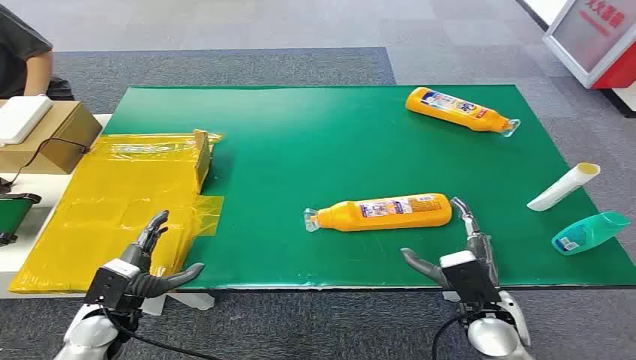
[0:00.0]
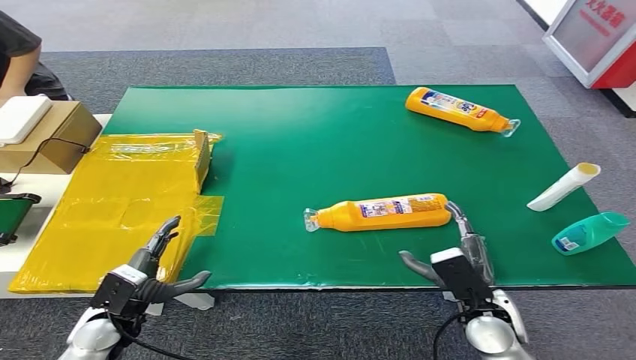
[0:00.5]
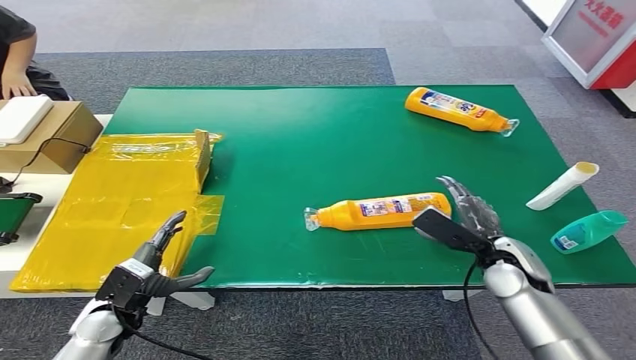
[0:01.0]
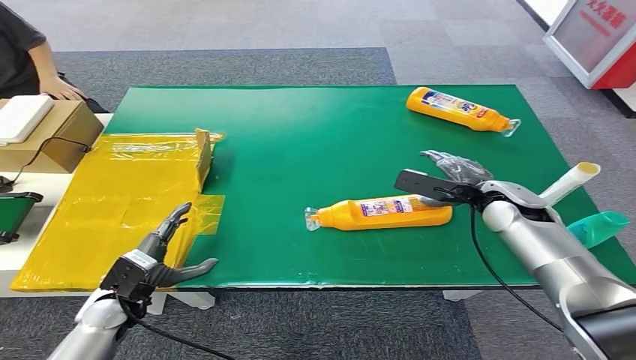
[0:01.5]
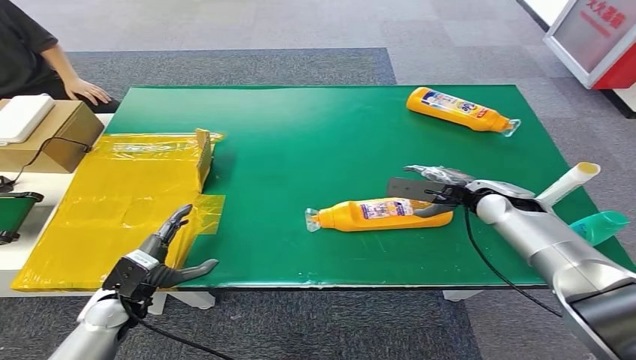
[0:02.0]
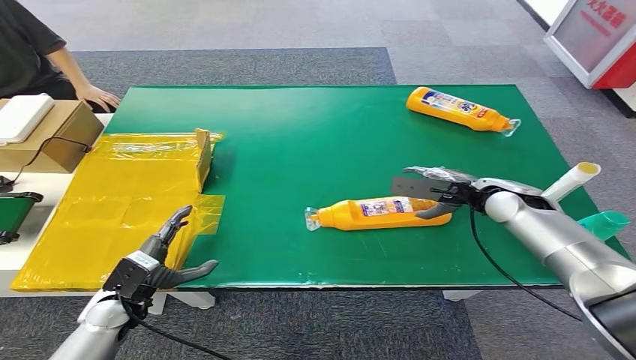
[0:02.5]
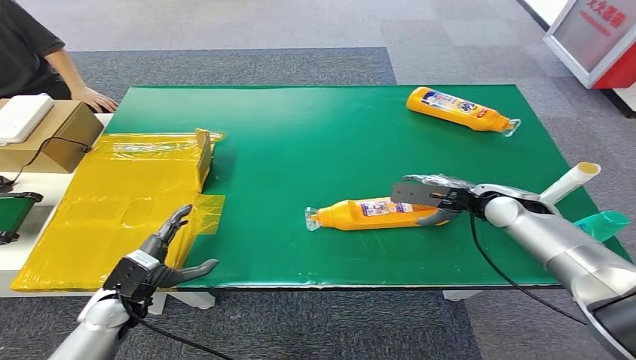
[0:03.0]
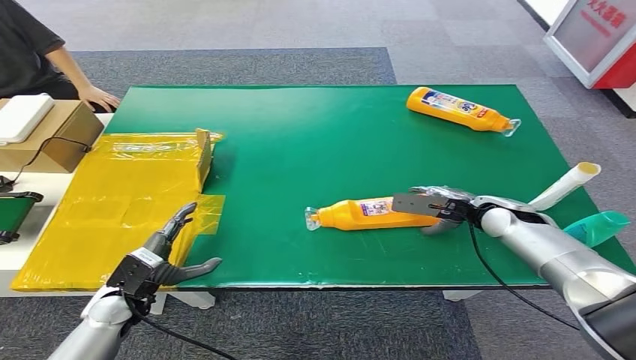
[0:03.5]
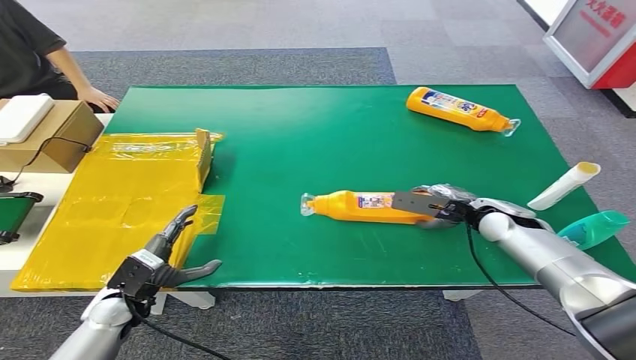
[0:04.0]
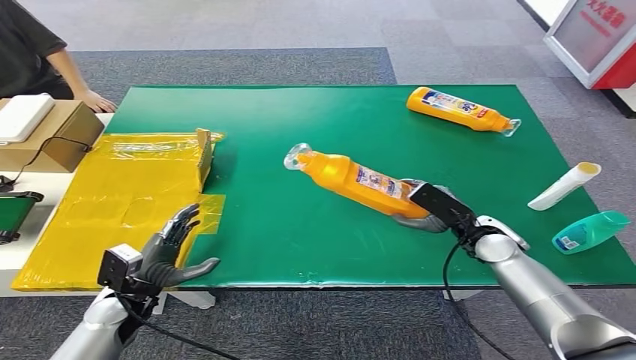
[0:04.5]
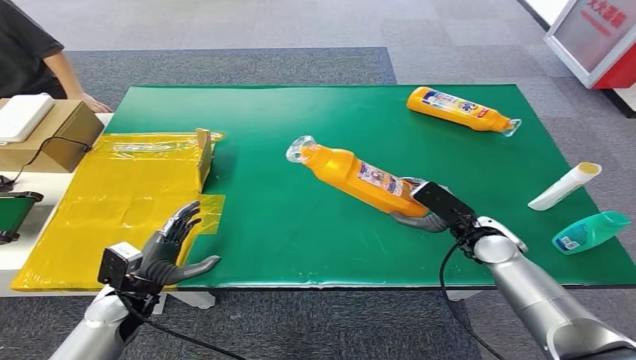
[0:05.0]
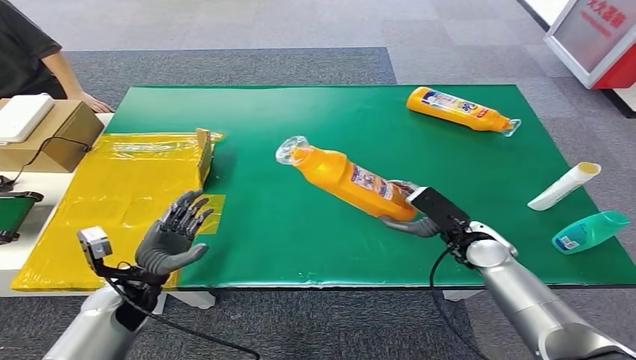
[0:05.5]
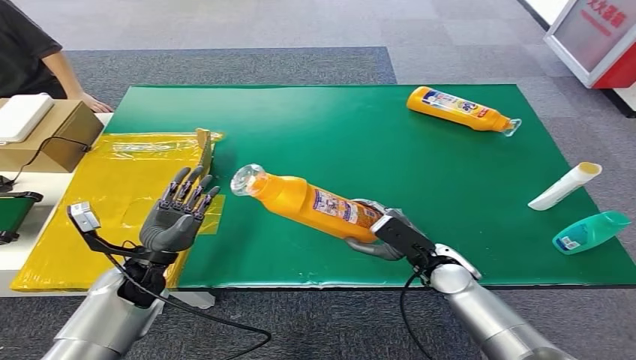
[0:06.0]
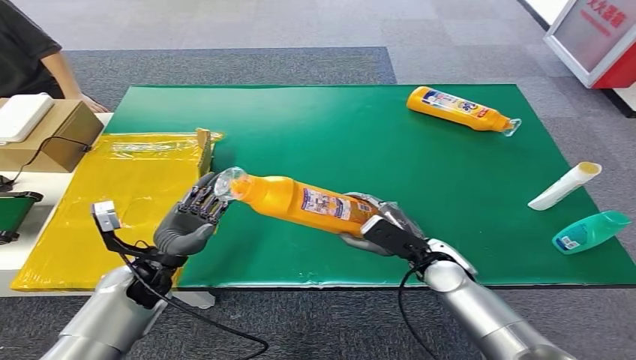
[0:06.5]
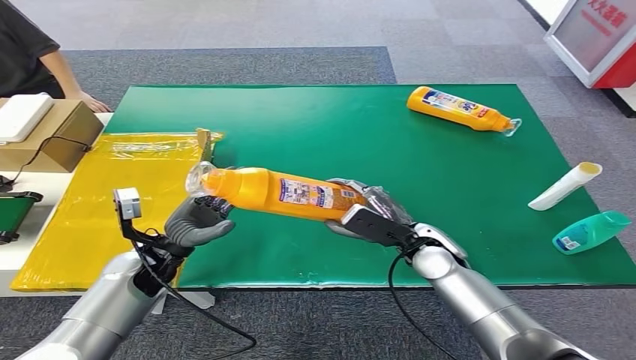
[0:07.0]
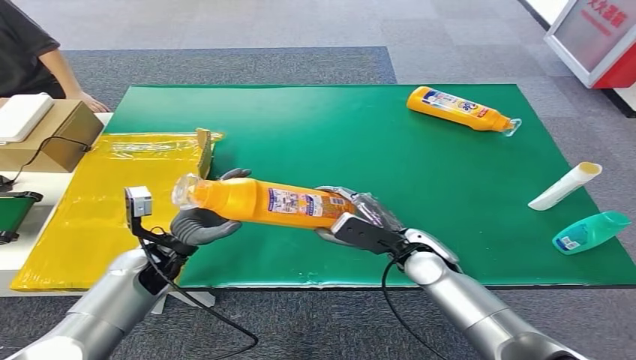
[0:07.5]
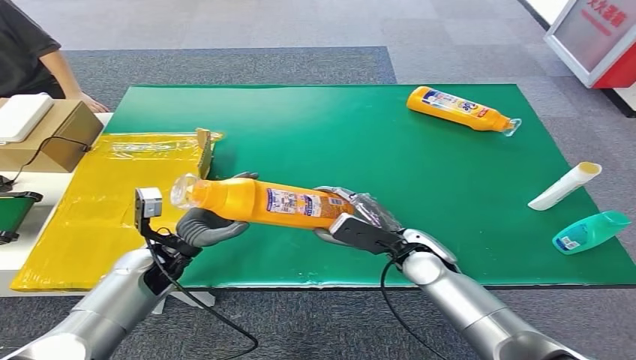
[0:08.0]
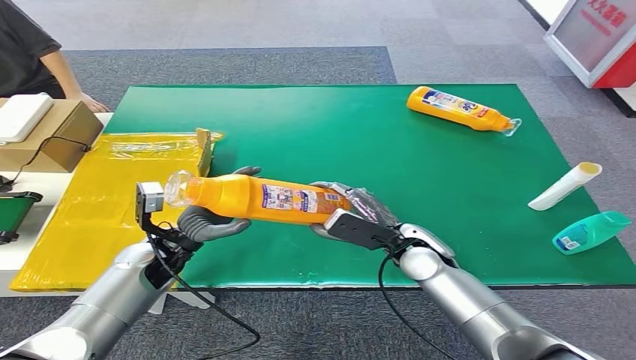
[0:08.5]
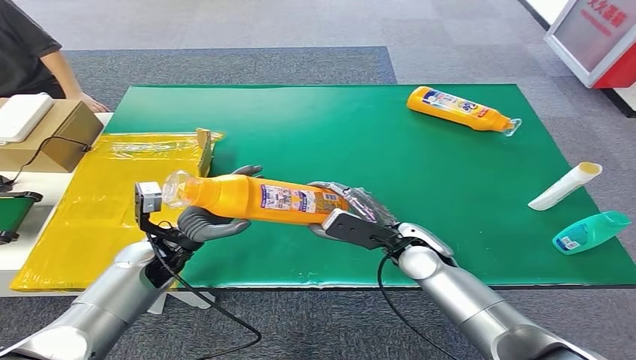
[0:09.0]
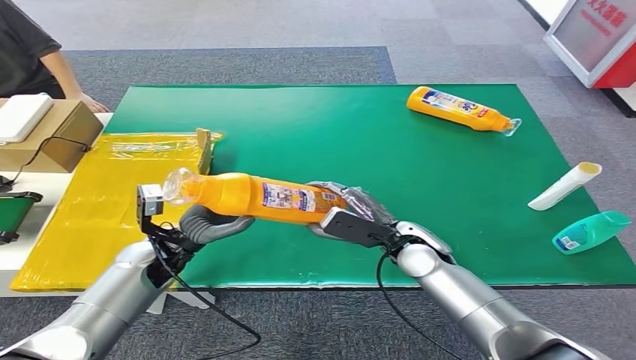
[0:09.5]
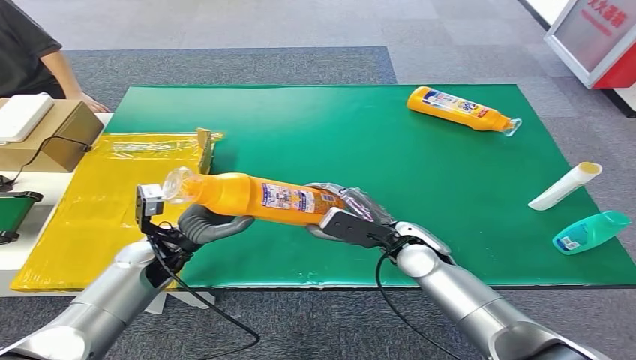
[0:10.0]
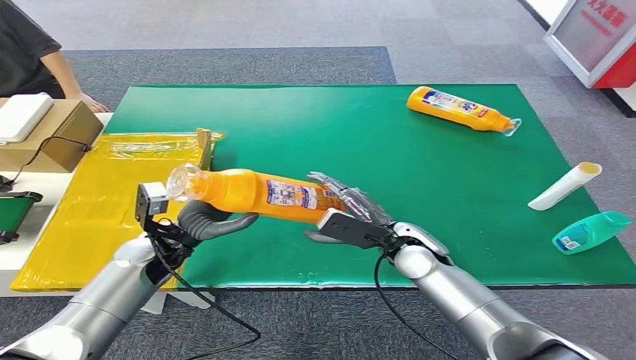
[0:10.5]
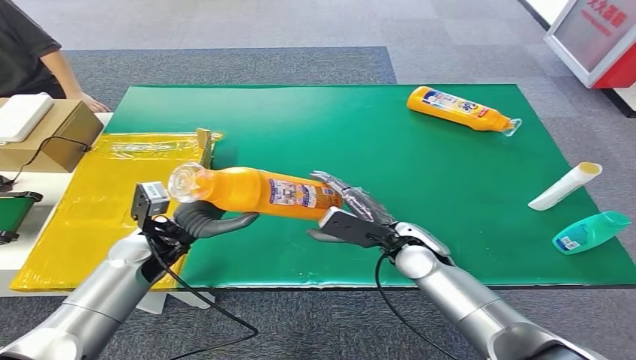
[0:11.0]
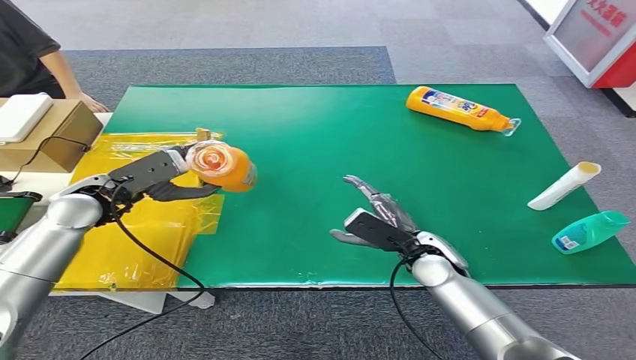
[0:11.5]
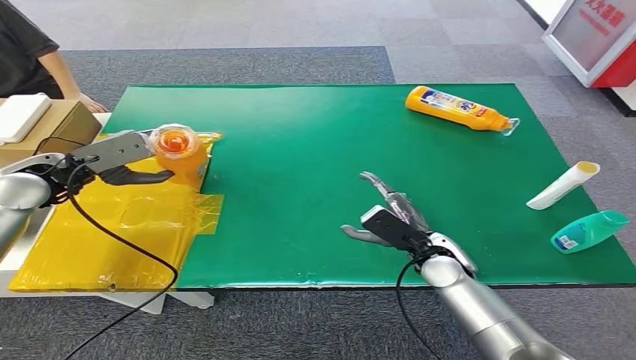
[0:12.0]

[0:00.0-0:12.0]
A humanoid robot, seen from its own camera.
Step, 0:00.0 to 0:04.5: Pick up the bottle from the table.
0:02.0 to 0:04.0: The hands stay close to where they were, moving slightly.
0:04.0 to 0:06.0: The right hand shifts approximately 15 cm to the left, backward and downward; the left hand shifts about 5 cm upward.
0:06.0 to 0:08.0: The right hand changes place by roughly 5 cm.
0:08.0 to 0:10.0: There are only small adjustments of the hands.

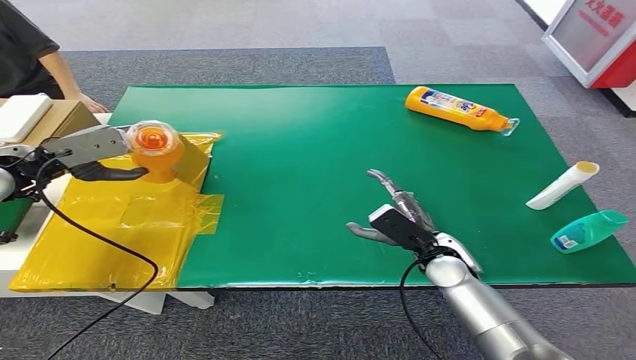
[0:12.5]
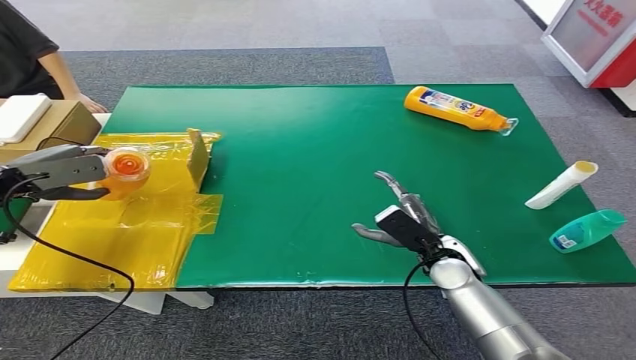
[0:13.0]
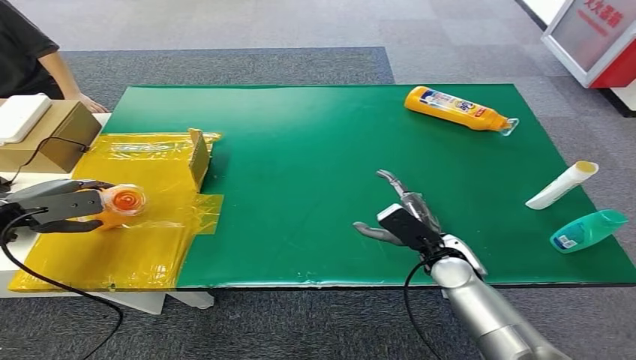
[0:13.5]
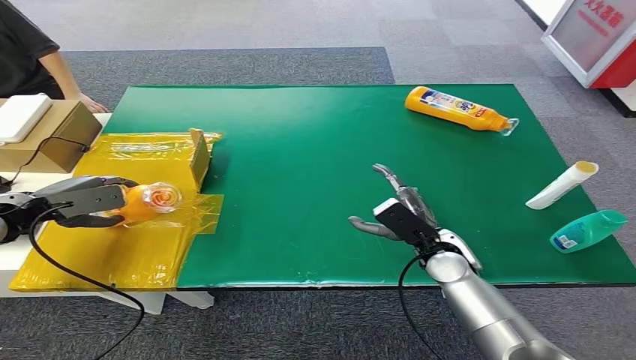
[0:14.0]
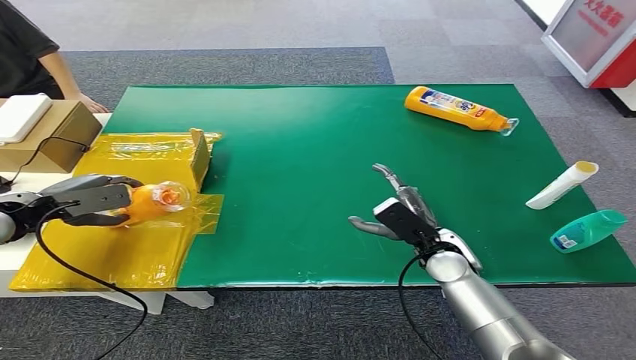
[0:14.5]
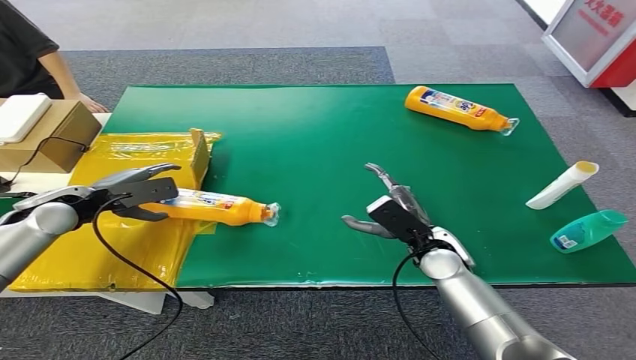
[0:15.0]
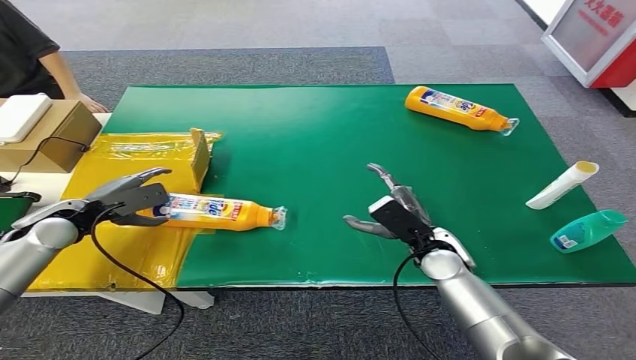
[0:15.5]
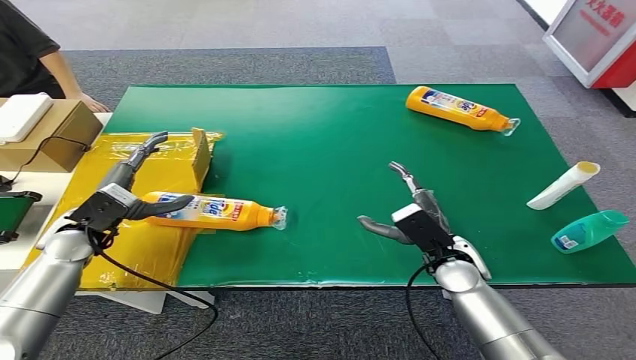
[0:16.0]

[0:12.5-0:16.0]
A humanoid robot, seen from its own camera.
Step, 0:12.5 to 0:16.0: Turn the bottle to the front side.
0:12.5 to 0:14.5: The left hand heads downward, covering approximately 5 cm.
0:14.5 to 0:16.0: The left hand heads to the right and downward, covering approximately 10 cm.

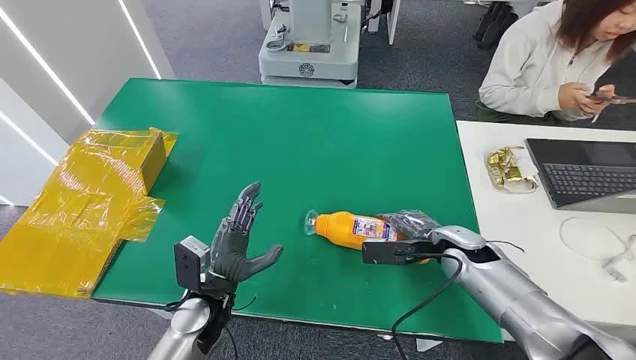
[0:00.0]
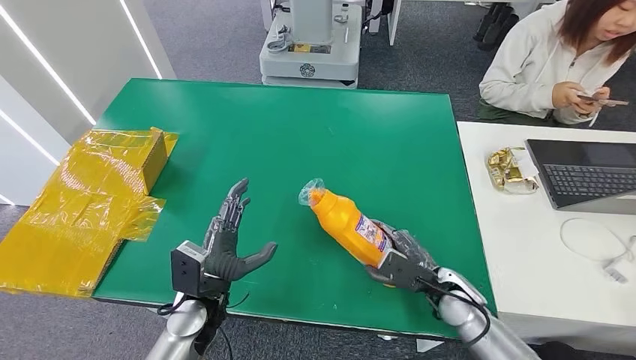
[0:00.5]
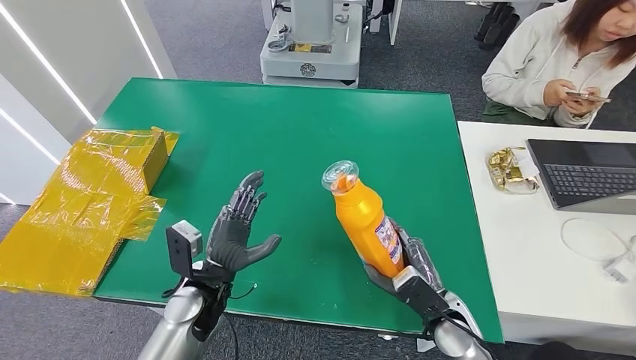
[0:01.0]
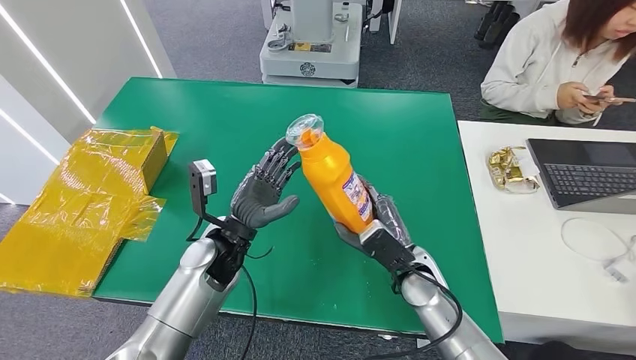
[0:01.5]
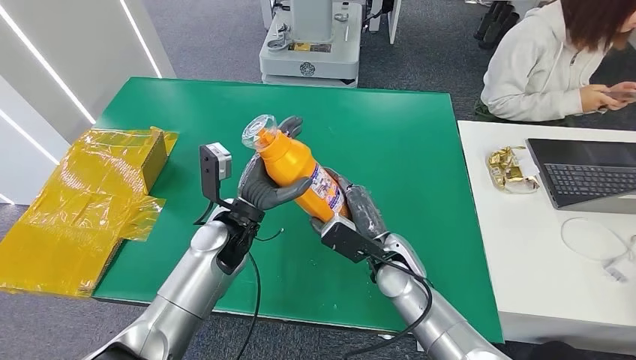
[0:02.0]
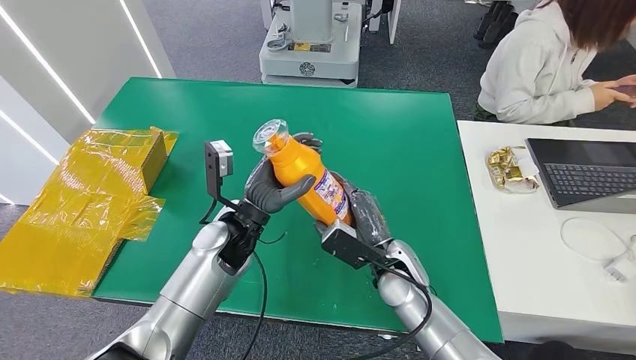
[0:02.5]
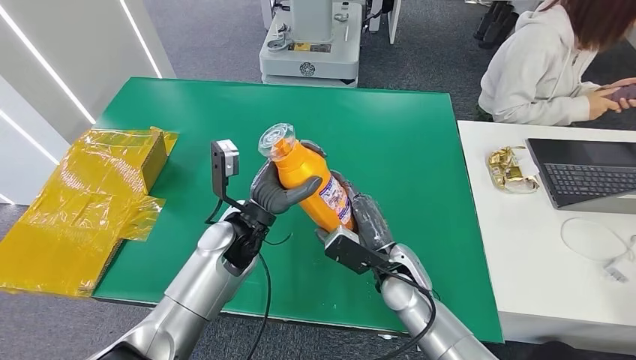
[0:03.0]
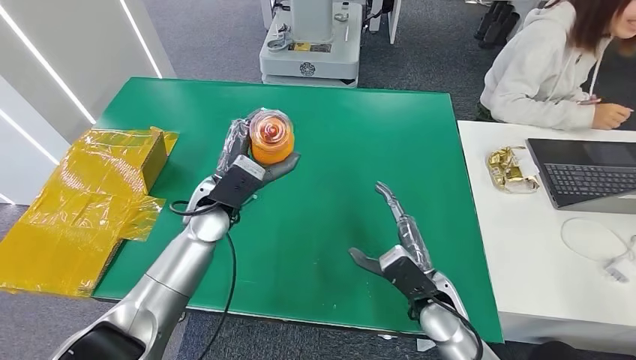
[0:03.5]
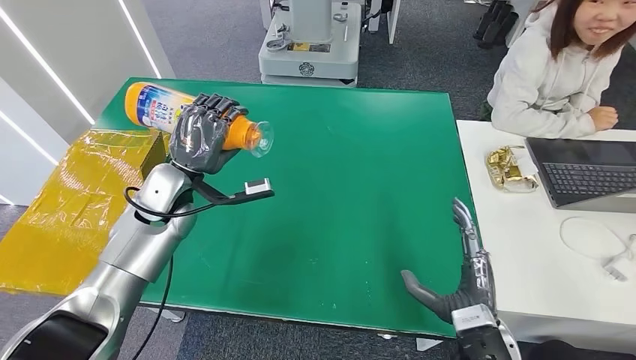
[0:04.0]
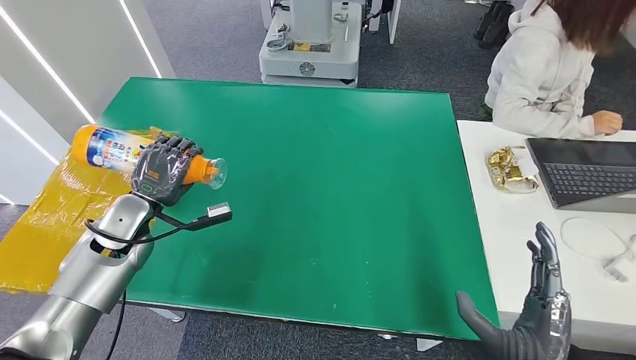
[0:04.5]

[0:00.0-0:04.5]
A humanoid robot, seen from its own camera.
Step, 0:00.0 to 0:01.0: Pick up the bottle from the table.
